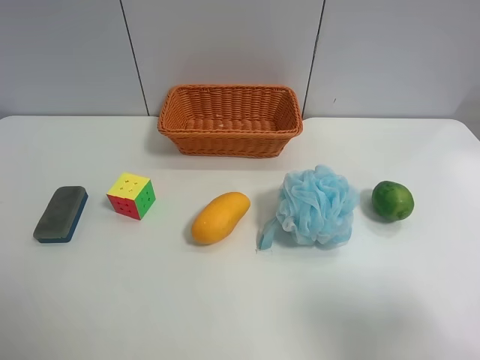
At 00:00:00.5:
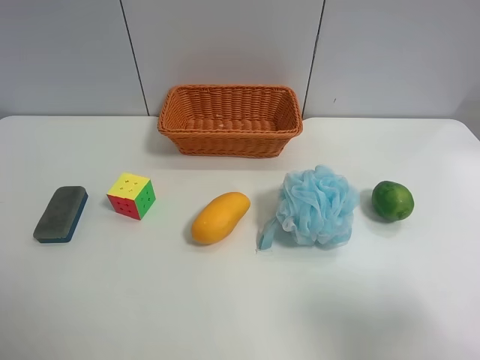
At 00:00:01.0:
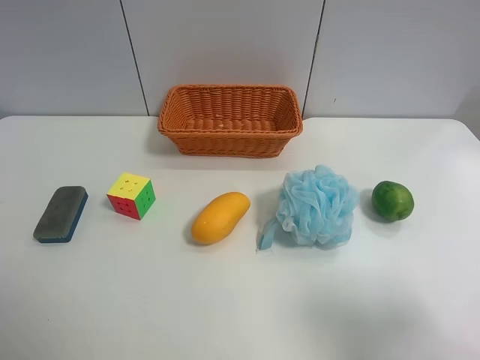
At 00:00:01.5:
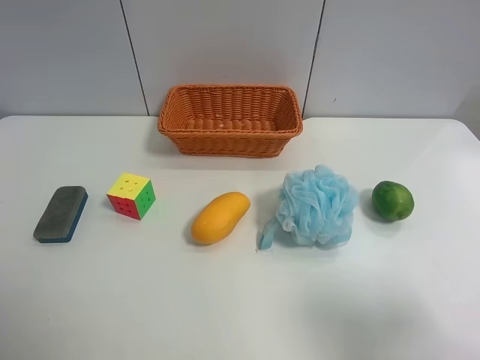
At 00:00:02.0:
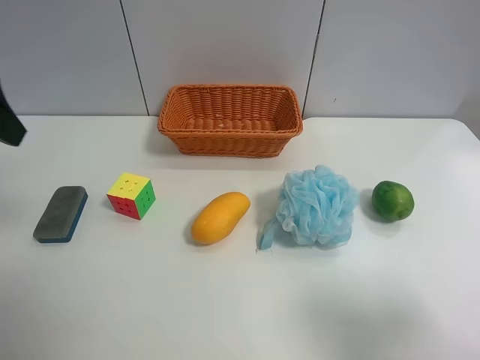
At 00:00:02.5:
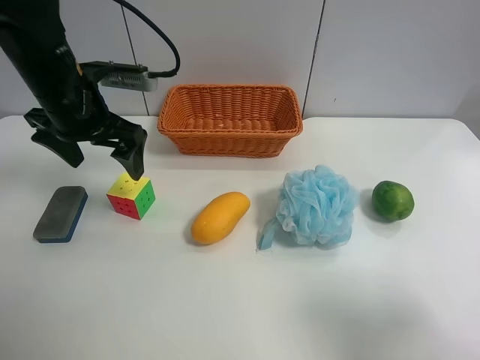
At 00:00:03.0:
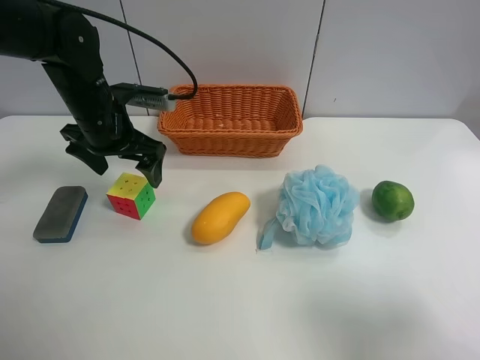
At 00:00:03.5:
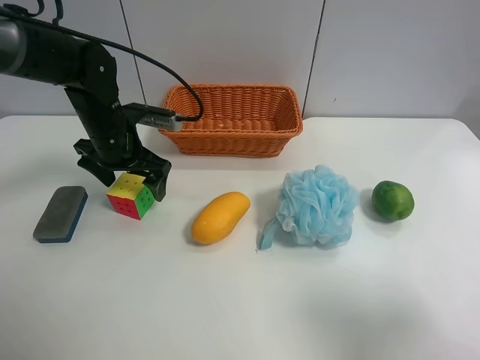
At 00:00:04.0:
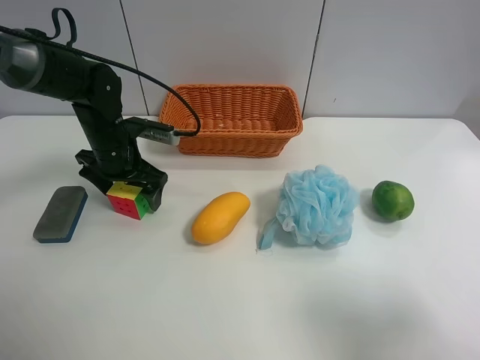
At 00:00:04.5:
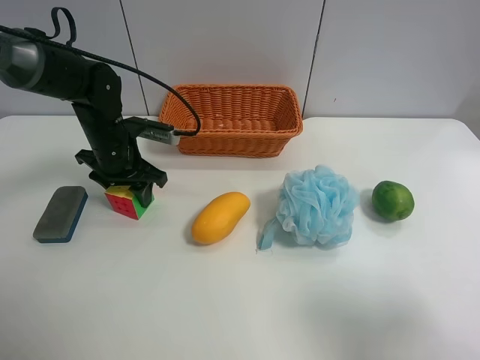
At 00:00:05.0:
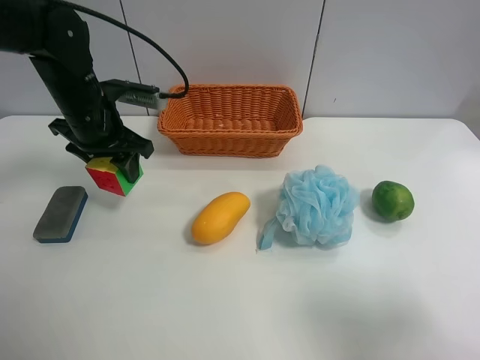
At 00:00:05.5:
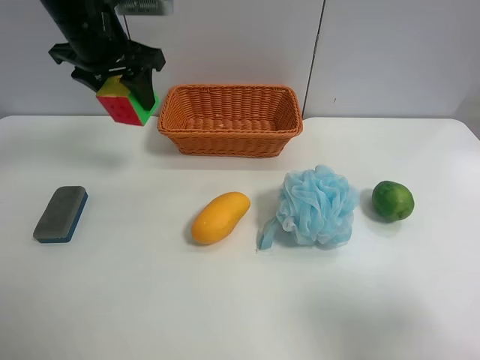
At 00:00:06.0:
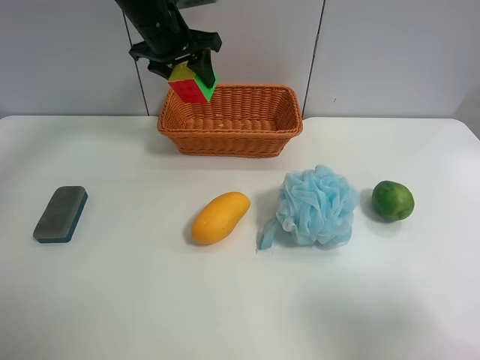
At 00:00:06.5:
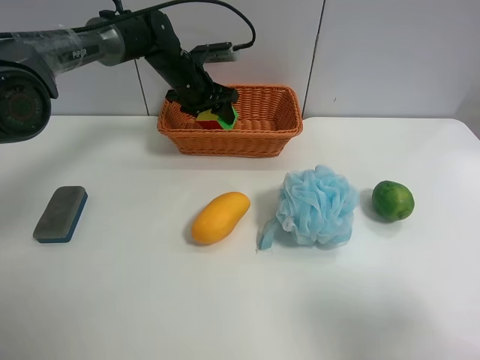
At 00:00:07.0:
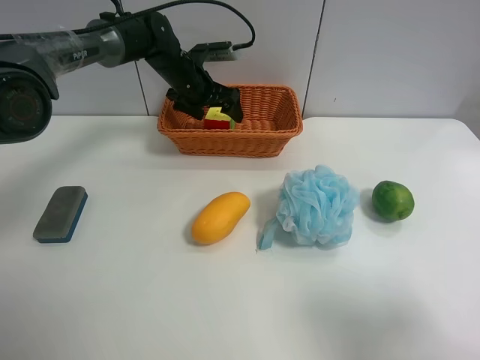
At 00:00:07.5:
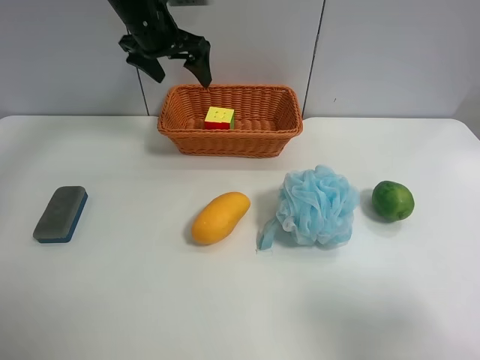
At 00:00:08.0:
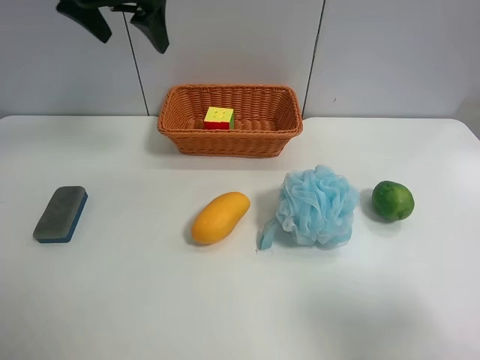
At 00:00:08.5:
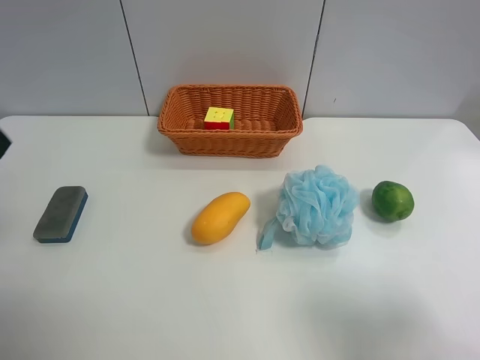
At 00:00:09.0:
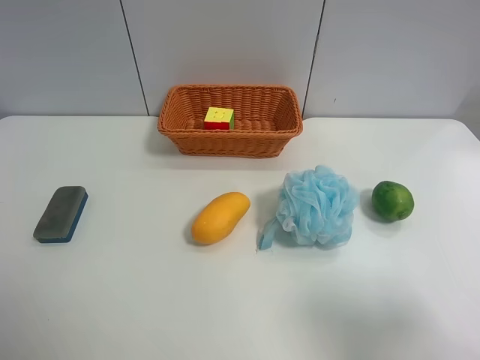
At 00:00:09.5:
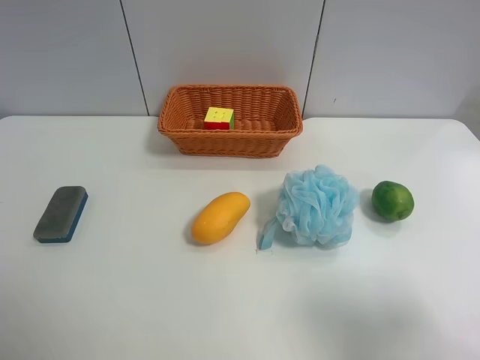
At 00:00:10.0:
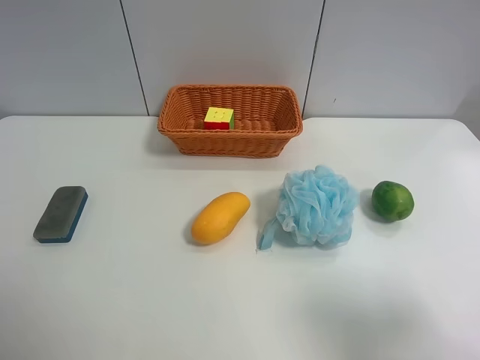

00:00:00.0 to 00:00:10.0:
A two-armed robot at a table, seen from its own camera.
Task of the whole recording: use the left gripper to grab items from the table and place them in the basket.
Step, 00:00:00.0 to 00:00:04.0: Grasp the Rubik's Cube with the left gripper.
Step, 00:00:04.5 to 00:00:07.0: Place the Rubik's Cube into the basket with the left gripper.
00:00:02.0 to 00:00:04.0: The left gripper travels downward and forward by roughly 25 cm.
00:00:04.0 to 00:00:06.0: The left gripper heads upward, forward and to the right, covering about 20 cm, and closes up.
00:00:06.0 to 00:00:08.0: The left gripper is displaced upward, backward and to the left by some 15 cm, and opens.
00:00:08.0 to 00:00:10.0: The left gripper moves backward, some 40 cm.

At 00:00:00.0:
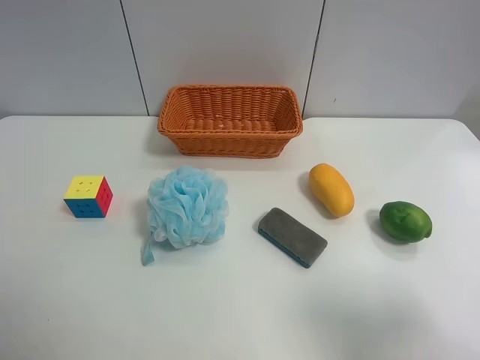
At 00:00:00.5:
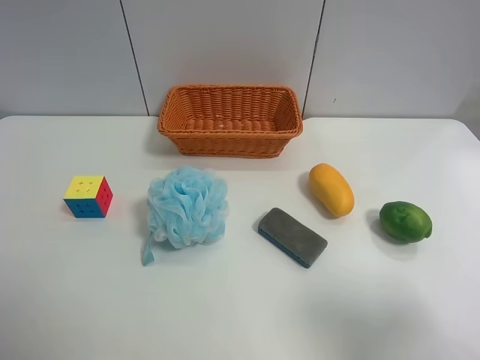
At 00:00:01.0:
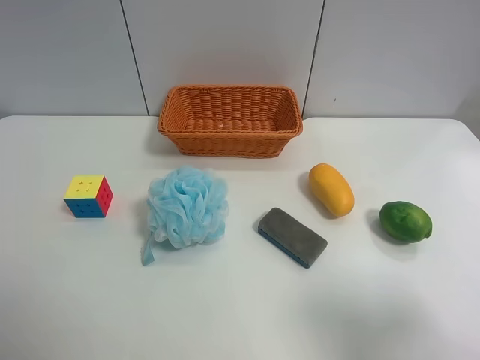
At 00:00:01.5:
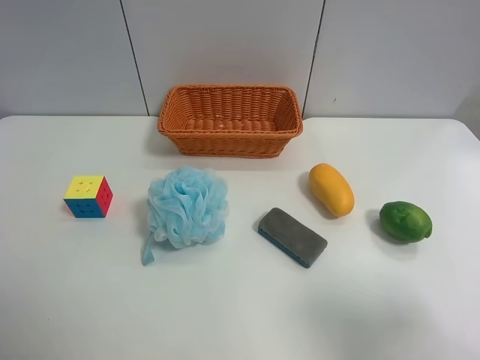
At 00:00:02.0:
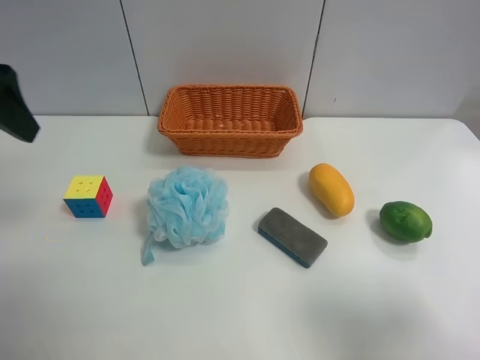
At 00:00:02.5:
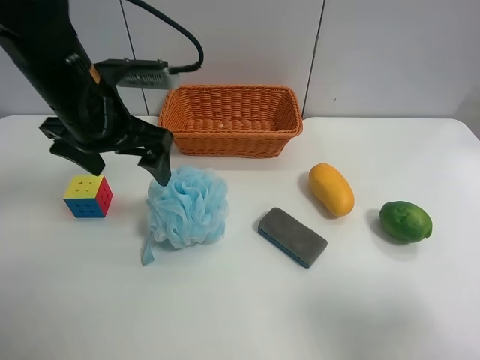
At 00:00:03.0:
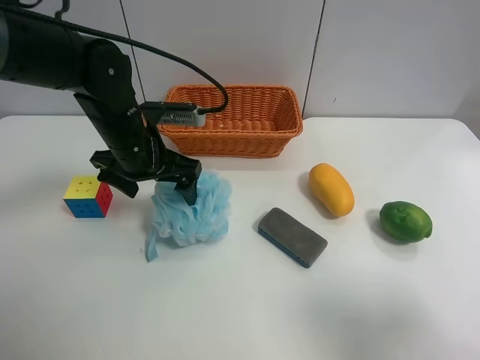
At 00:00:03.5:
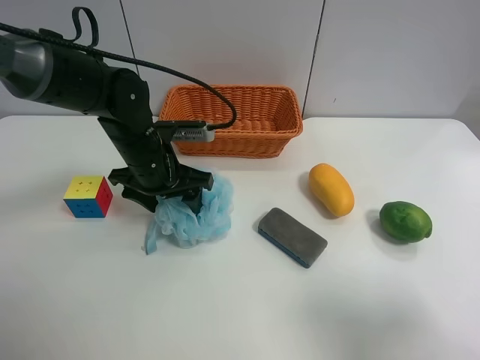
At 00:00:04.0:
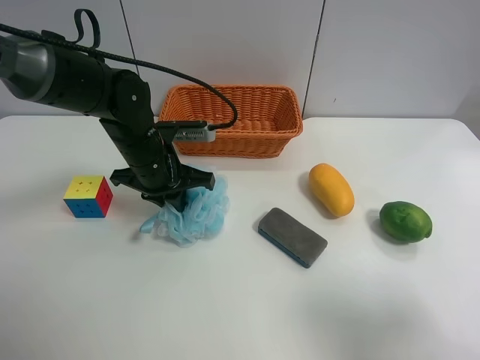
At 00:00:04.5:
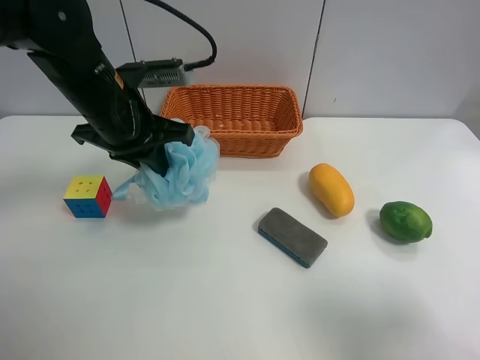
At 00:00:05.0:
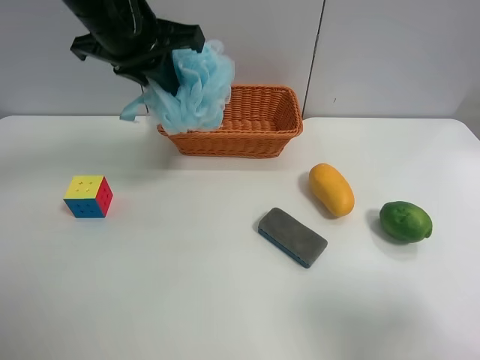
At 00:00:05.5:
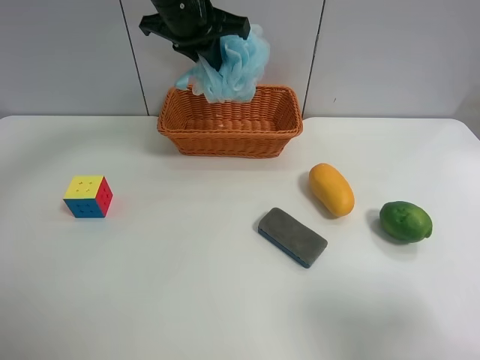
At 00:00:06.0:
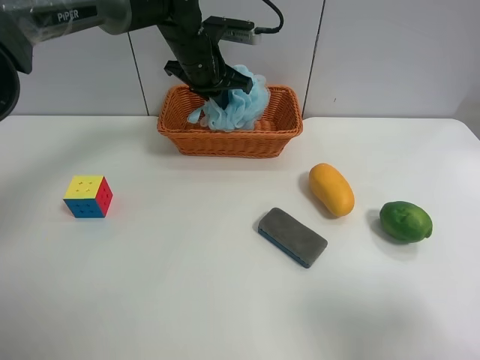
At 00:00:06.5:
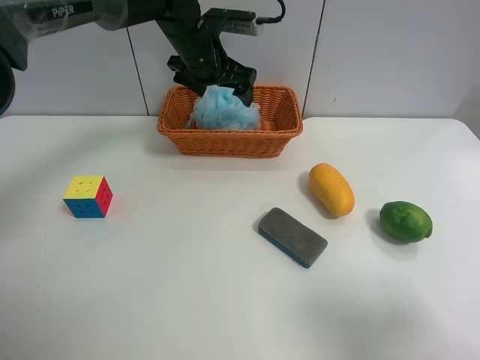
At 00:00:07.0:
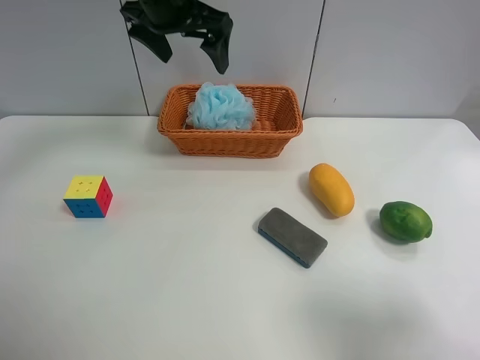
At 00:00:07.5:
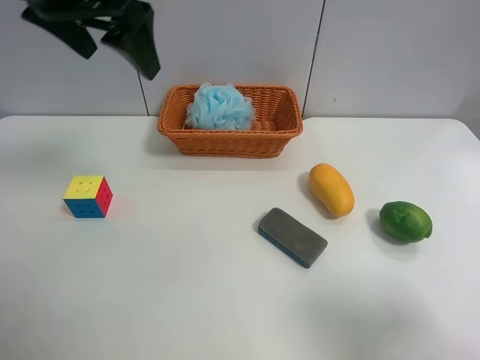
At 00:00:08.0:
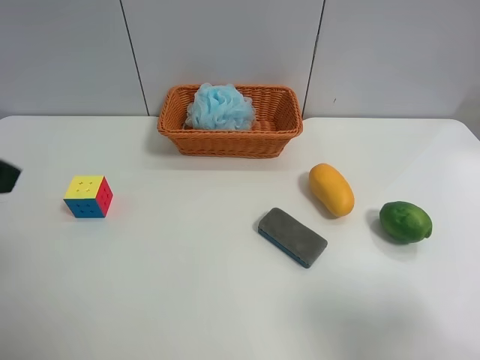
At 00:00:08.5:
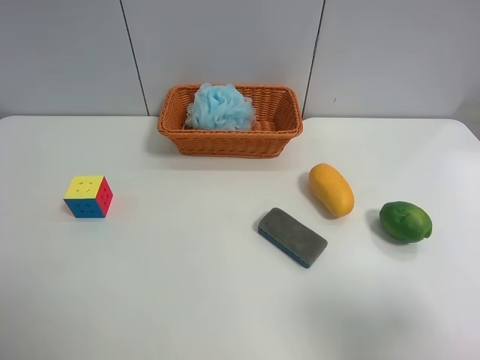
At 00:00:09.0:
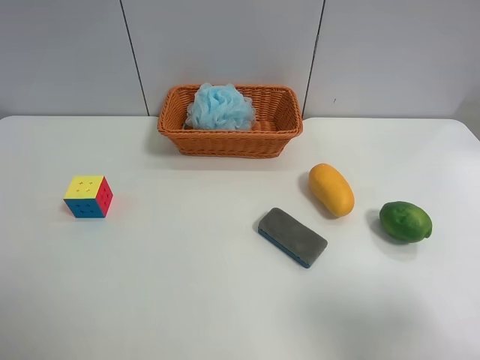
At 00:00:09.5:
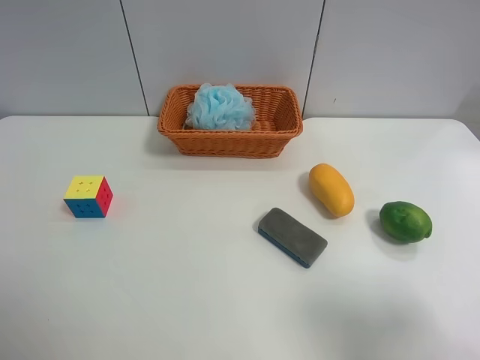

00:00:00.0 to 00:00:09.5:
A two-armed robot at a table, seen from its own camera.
Task of the whole recording: use the left gripper to grab items from the table and place them in the basket.
Step, 00:00:00.0 to 00:00:03.5: Grasp the Shower puff with the left gripper.
Step, 00:00:04.0 to 00:00:06.0: Place the Shower puff into the basket with the left gripper.
00:00:00.0 to 00:00:02.0: The left gripper heads forward, covering about 25 cm.
00:00:02.0 to 00:00:04.0: The left gripper shifts about 25 cm downward, to the right and forward, and closes its fingers.
00:00:04.0 to 00:00:05.5: The left gripper is displaced upward and forward by about 20 cm.
00:00:05.5 to 00:00:07.5: The left gripper shifts roughly 15 cm backward, to the left and upward, and opens.
00:00:07.5 to 00:00:09.5: The left gripper shifts about 35 cm backward and to the left.
